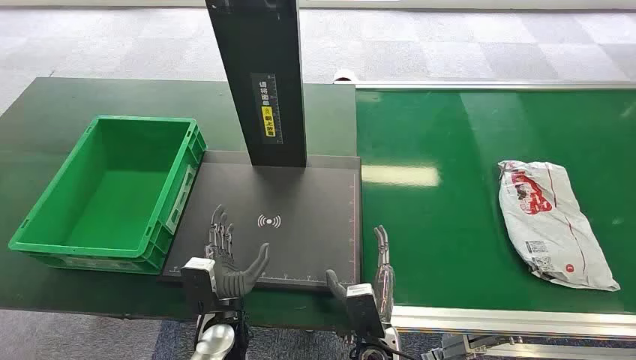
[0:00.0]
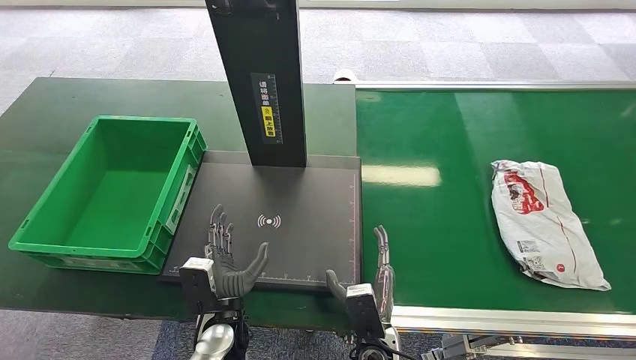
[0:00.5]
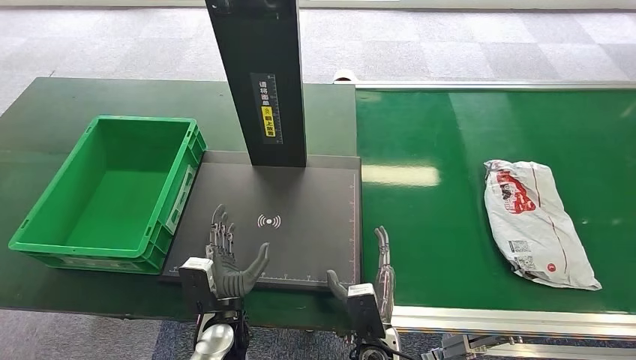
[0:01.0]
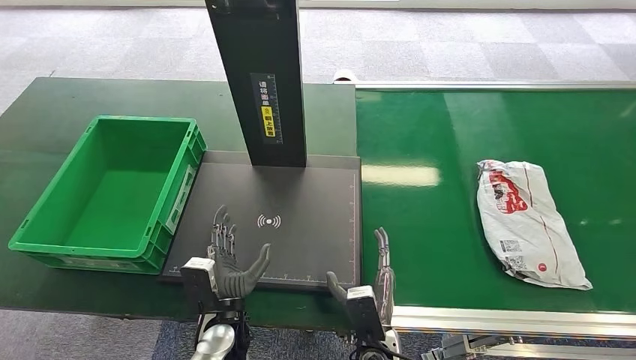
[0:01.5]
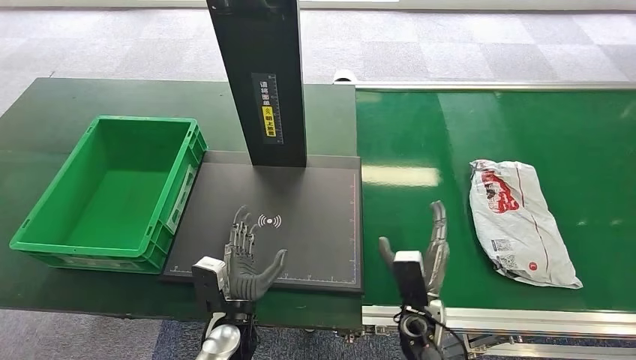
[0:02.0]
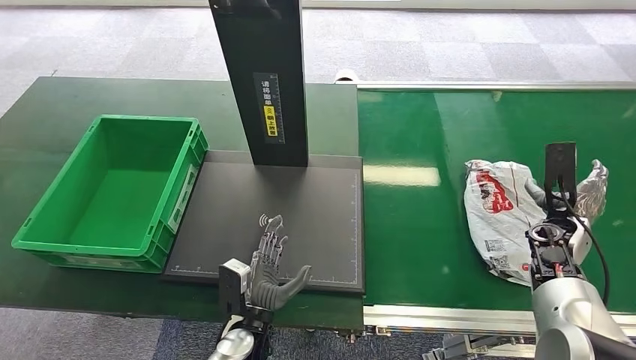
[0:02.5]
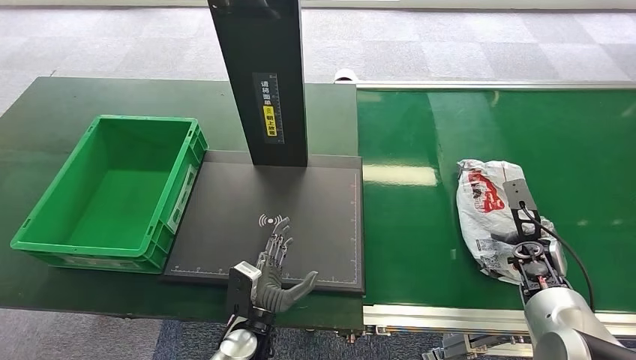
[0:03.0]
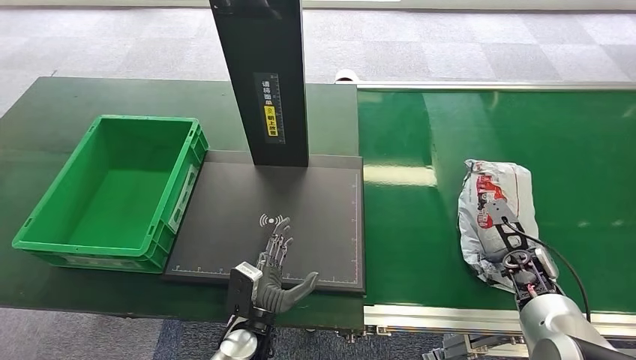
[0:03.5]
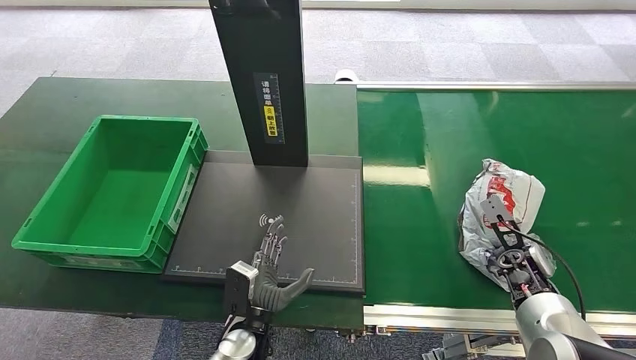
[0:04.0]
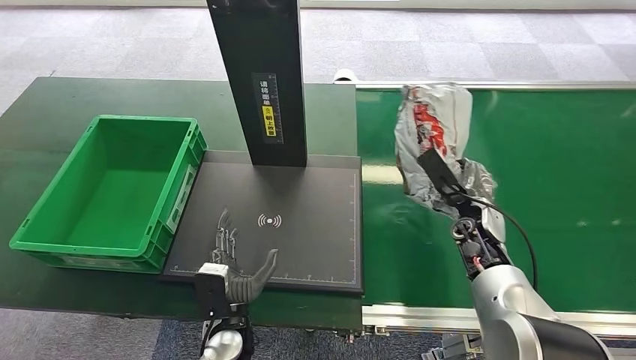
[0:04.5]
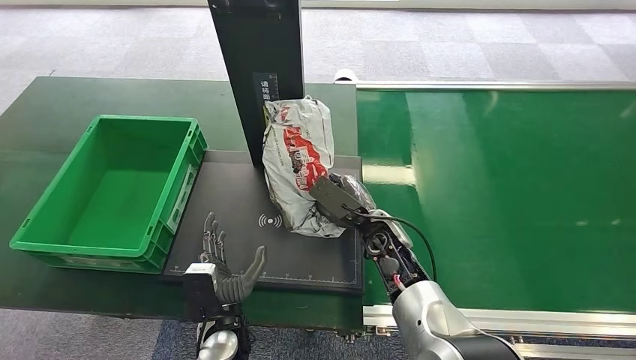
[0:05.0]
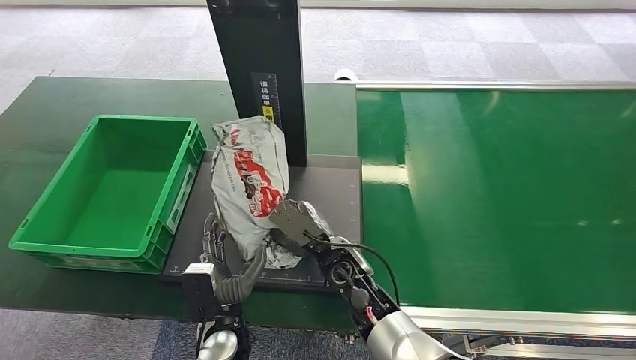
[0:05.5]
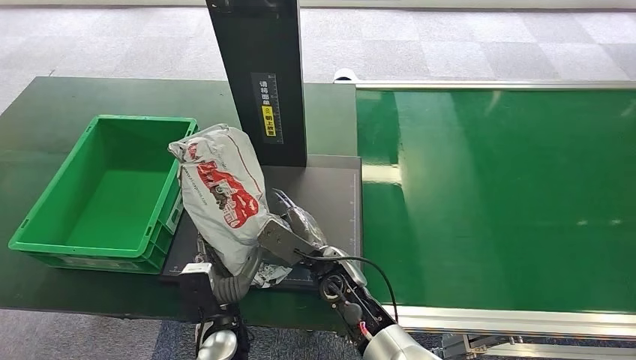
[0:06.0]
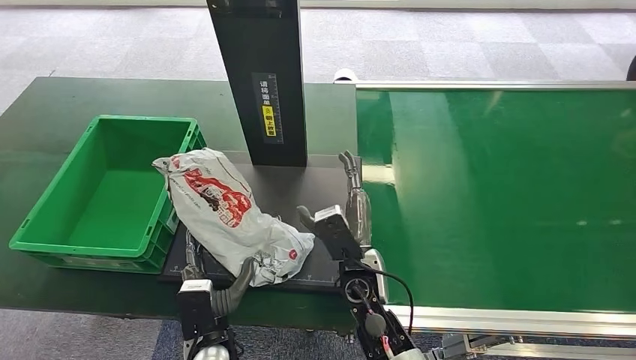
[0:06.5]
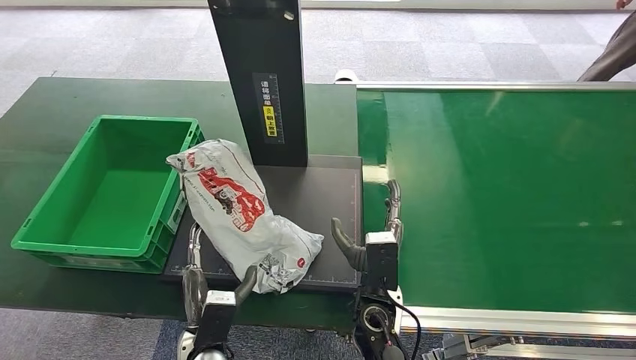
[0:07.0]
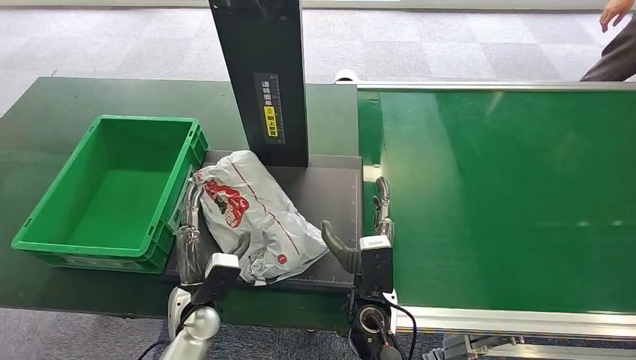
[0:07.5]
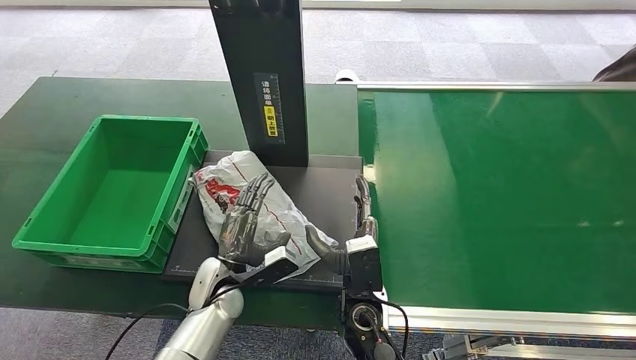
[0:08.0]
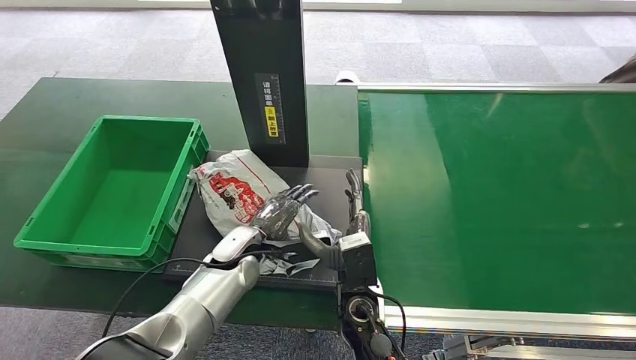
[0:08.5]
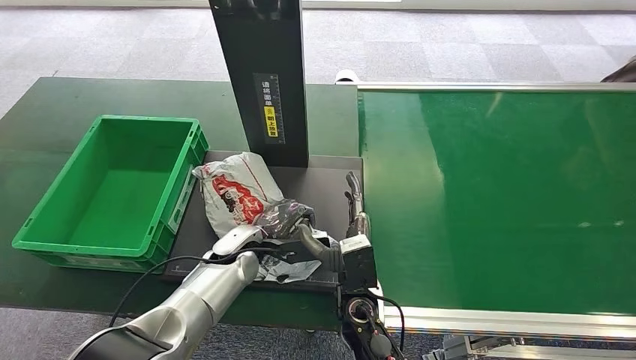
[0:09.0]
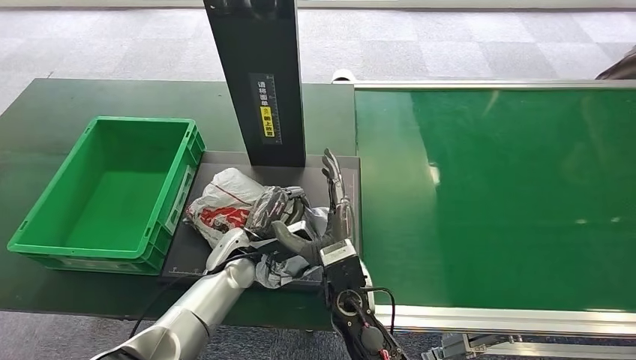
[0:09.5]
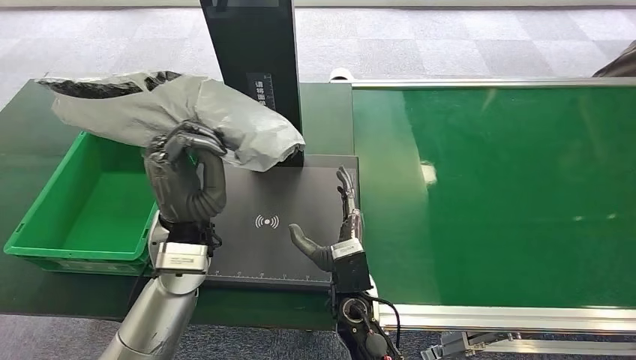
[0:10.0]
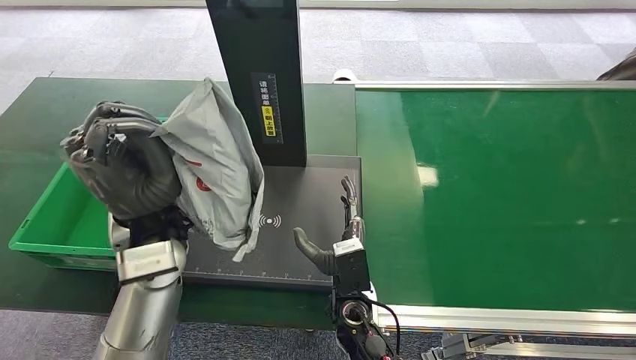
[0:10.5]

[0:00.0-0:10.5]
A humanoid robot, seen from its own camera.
Step, 0:00.0 to 0:04.5: Pick up the package from the conveyor belt.
Step, 0:05.0 to 0:07.5: Place the package onto the inbound machine.
Step, 0:08.0 to 0:10.0: Pick up the package from the inbound machine.
0:02.0 to 0:04.0: The right hand travels to the right and forward by roughly 25 cm.

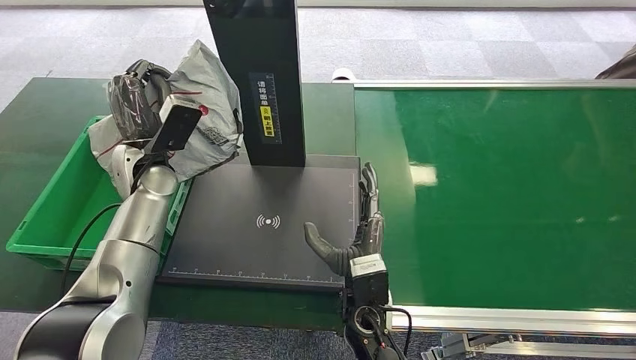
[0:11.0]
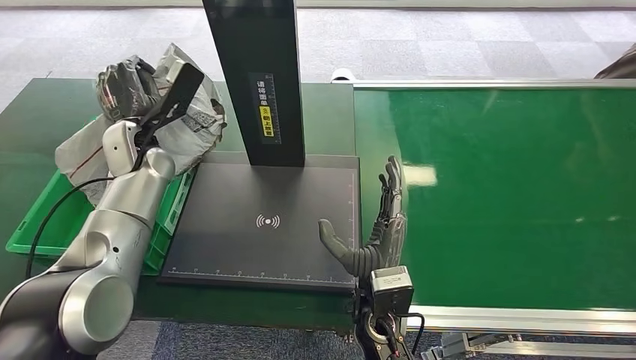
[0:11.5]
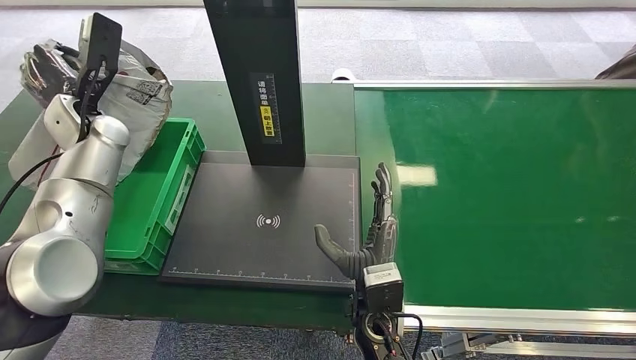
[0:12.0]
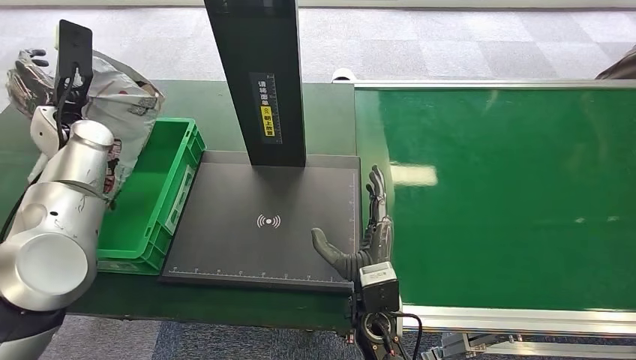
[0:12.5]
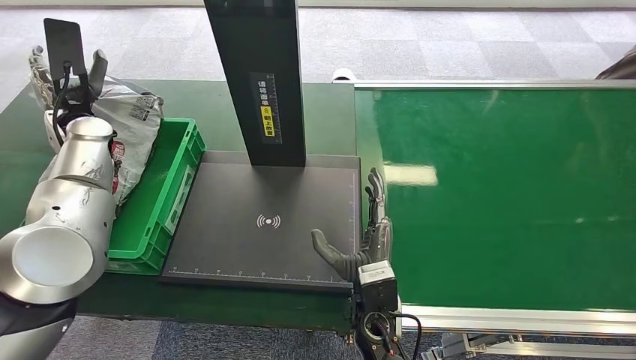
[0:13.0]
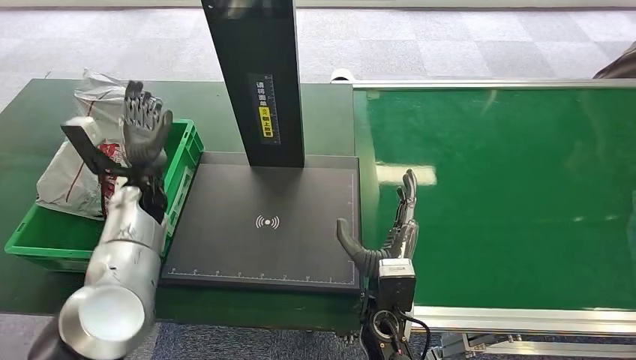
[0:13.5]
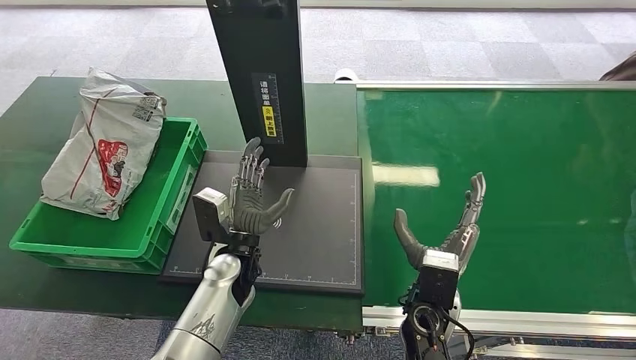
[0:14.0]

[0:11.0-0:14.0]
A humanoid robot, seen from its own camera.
Step, 0:11.0 to 0:14.0: Place the package into the parcel locker.

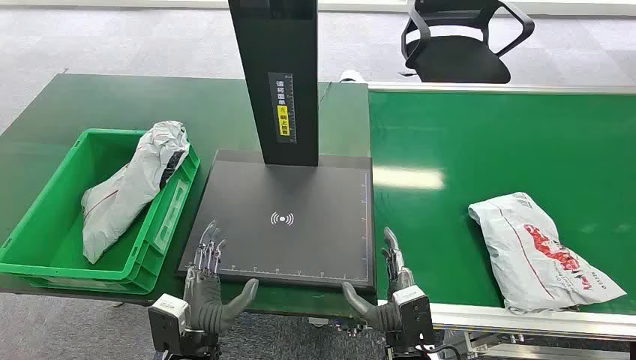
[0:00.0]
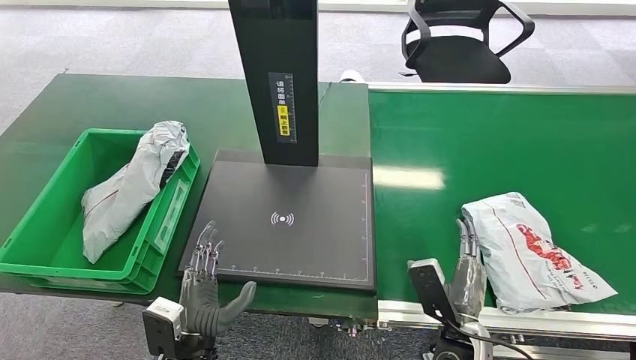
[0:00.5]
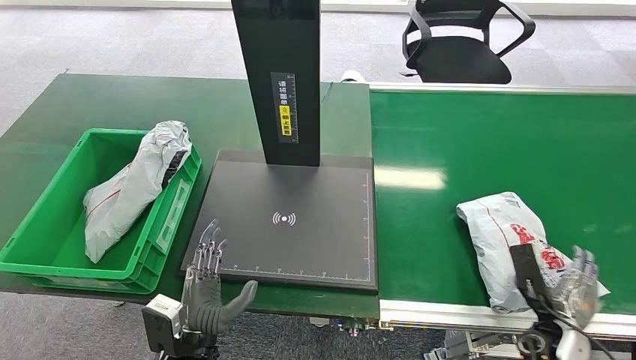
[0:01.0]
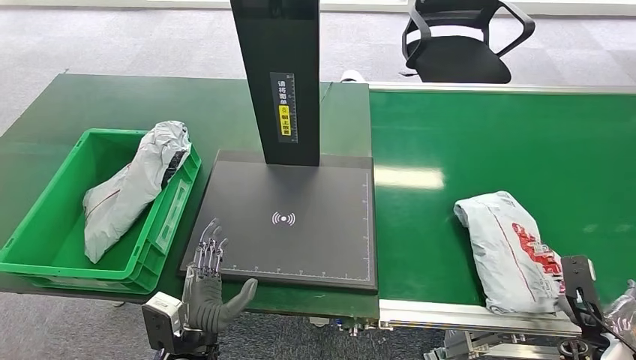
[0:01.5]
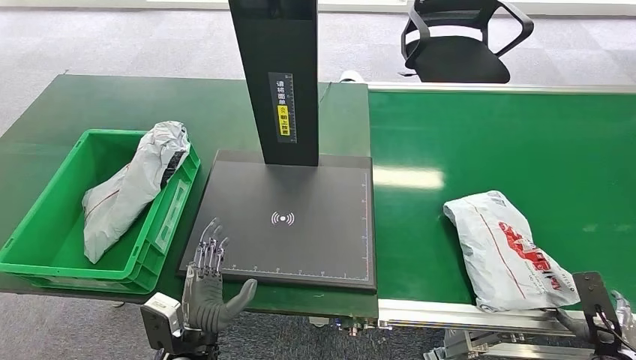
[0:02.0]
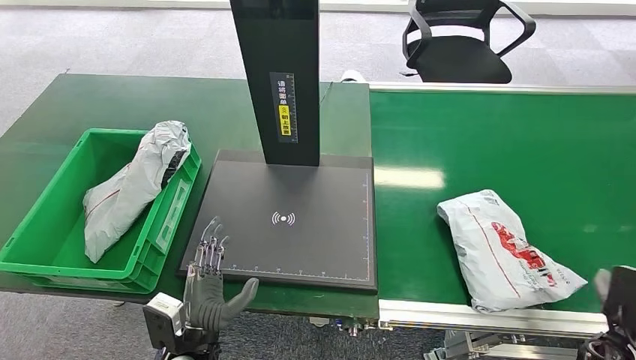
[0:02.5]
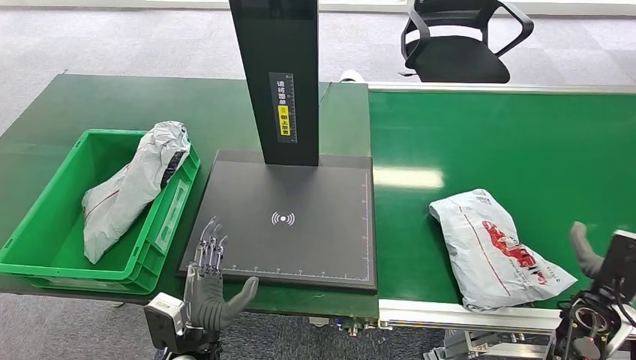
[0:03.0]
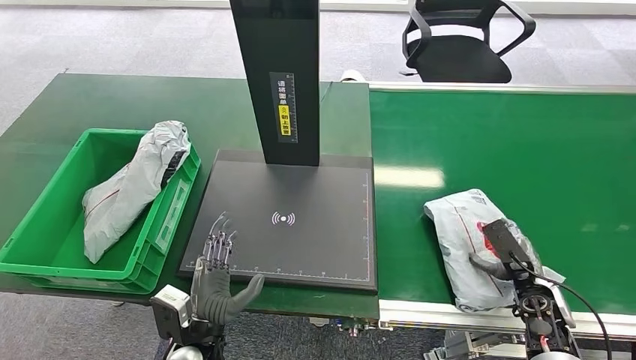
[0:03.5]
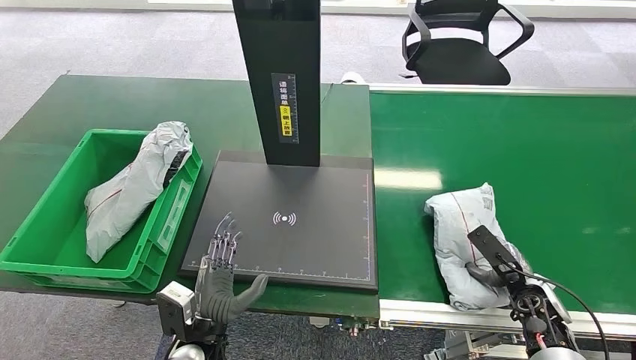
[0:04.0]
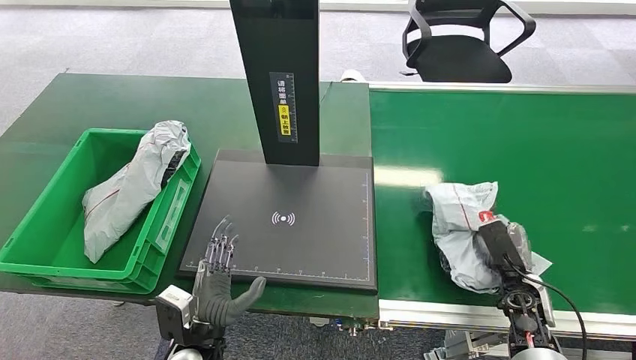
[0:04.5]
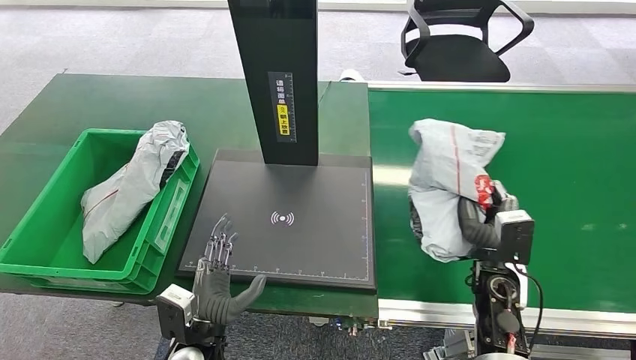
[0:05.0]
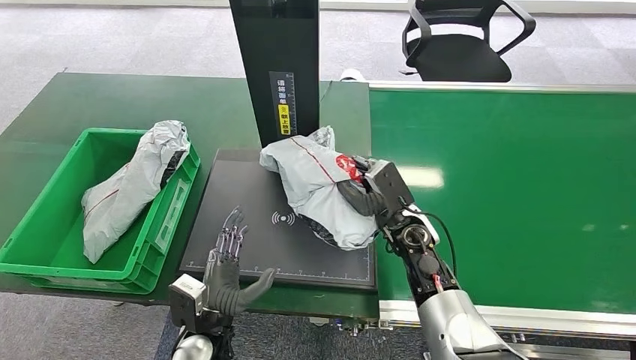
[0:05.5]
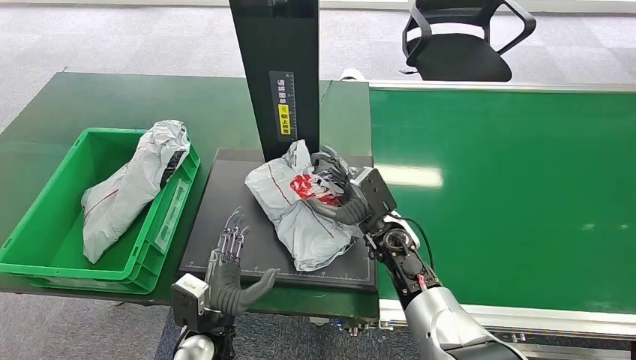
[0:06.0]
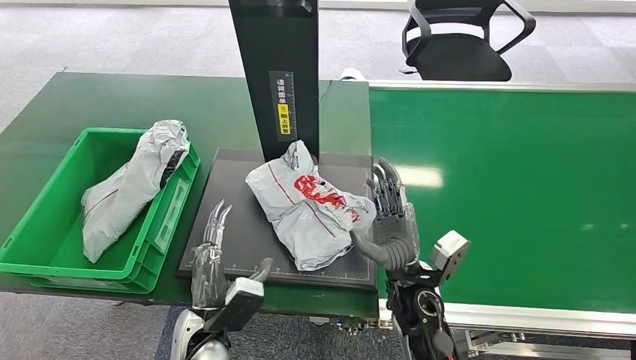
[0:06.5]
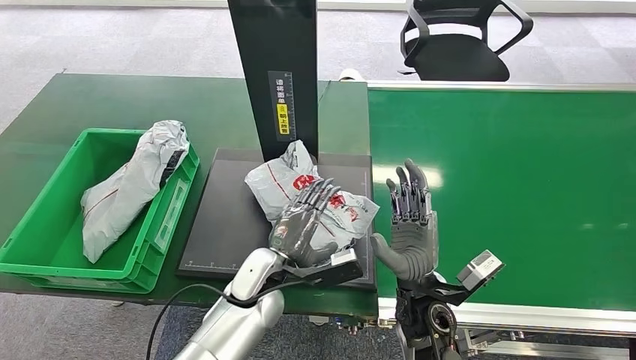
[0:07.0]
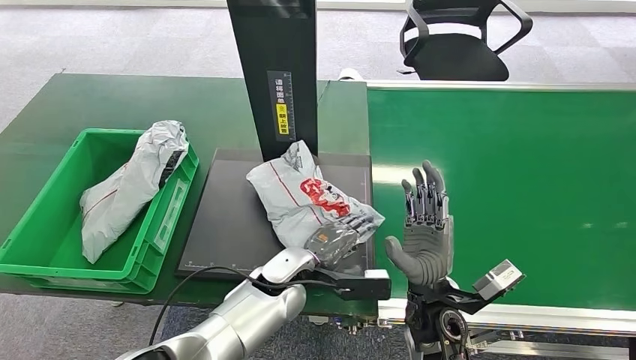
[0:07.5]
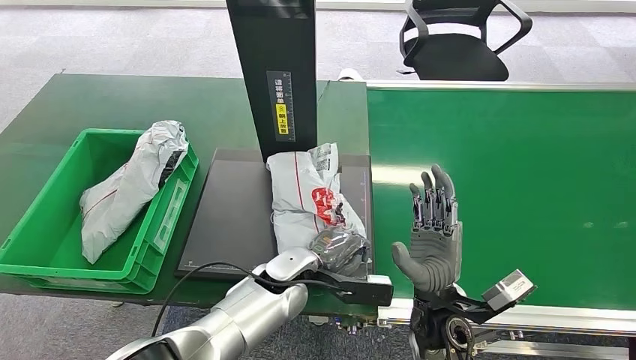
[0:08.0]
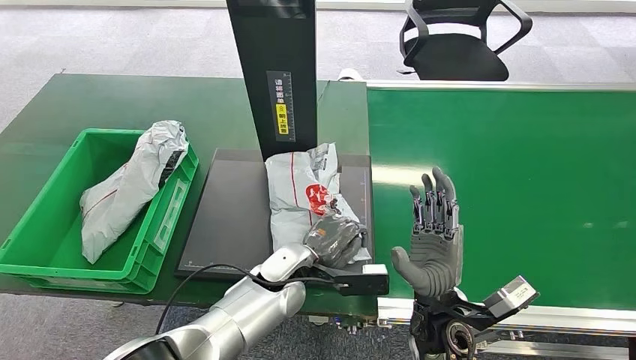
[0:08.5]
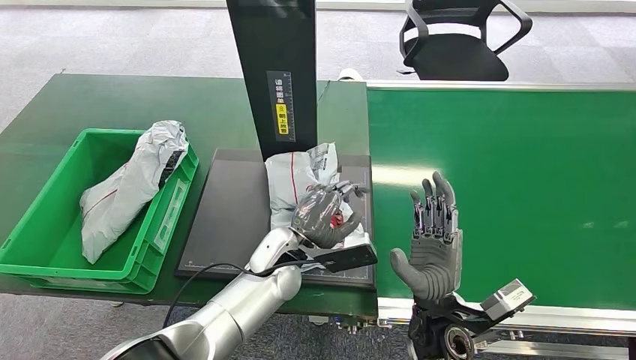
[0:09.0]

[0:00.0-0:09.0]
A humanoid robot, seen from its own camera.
Step, 0:00.0 to 0:05.0: Pick up the package from the conveyor belt.
Step, 0:05.5 to 0:06.5: Place the package onto the inbound machine.
0:02.0 to 0:04.5: The right hand is displaced to the left and forward by about 15 cm.
